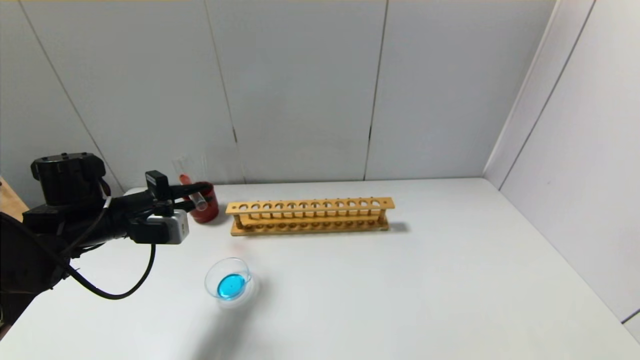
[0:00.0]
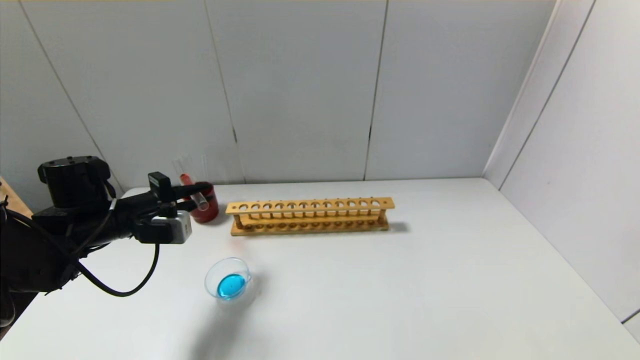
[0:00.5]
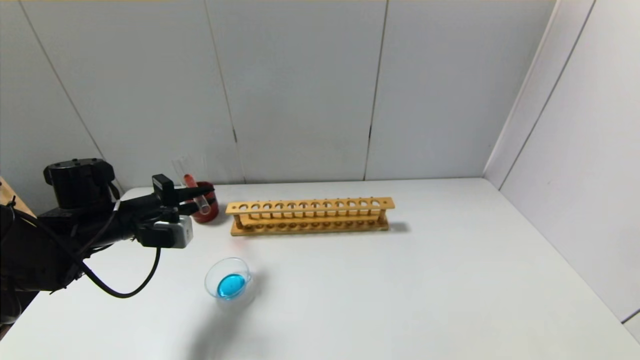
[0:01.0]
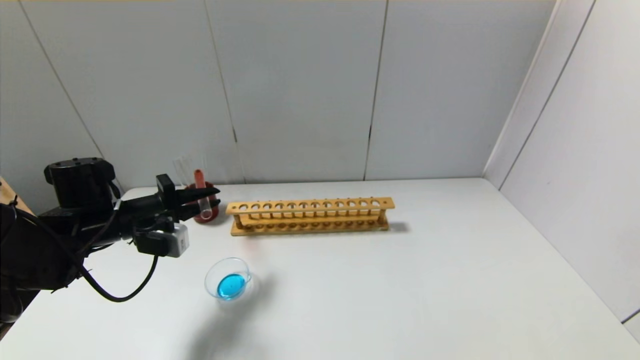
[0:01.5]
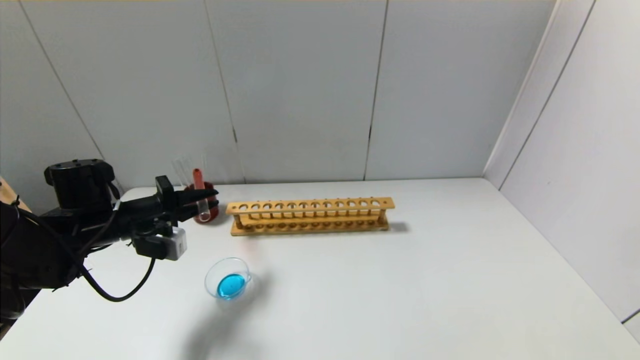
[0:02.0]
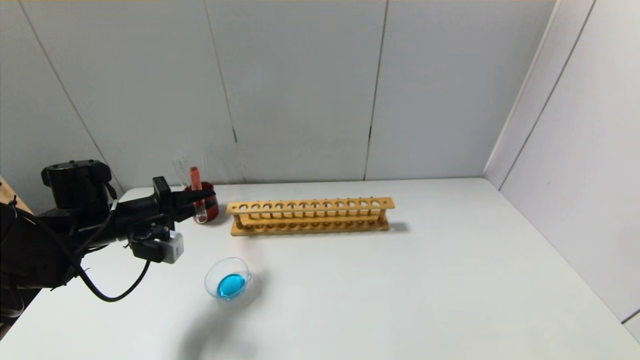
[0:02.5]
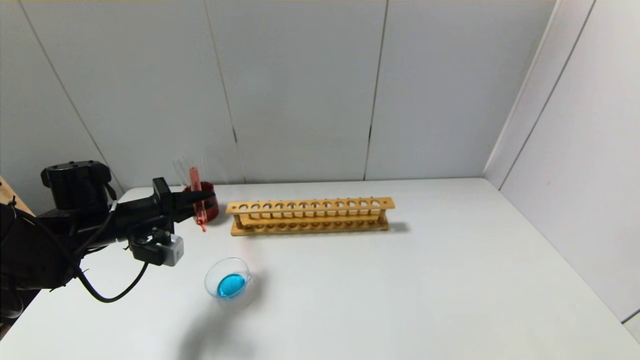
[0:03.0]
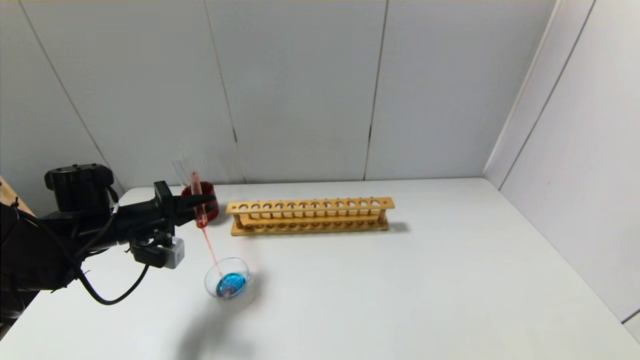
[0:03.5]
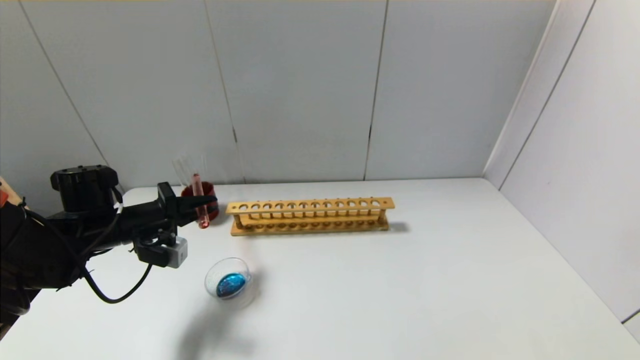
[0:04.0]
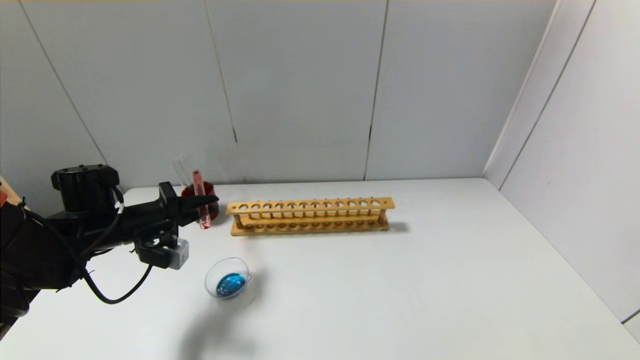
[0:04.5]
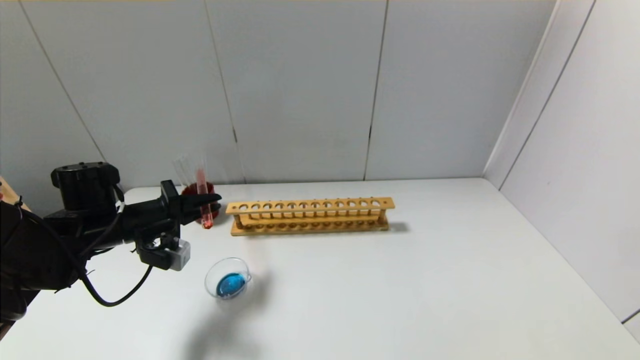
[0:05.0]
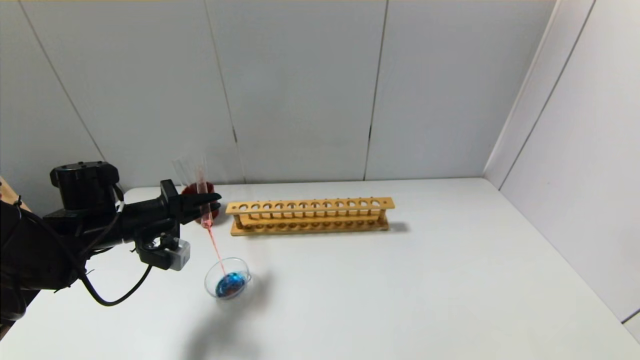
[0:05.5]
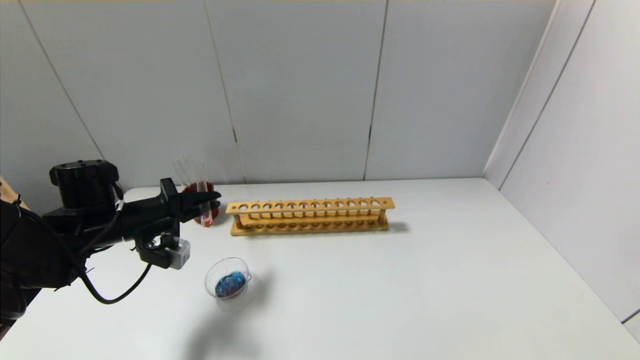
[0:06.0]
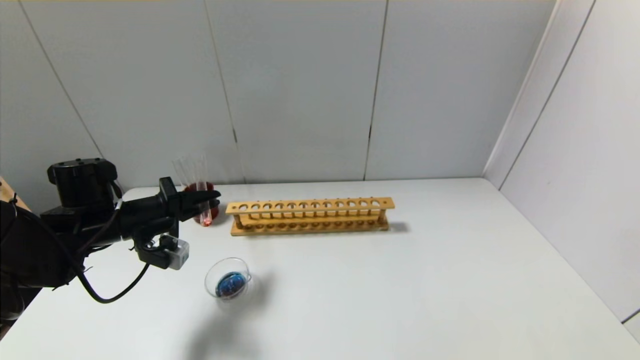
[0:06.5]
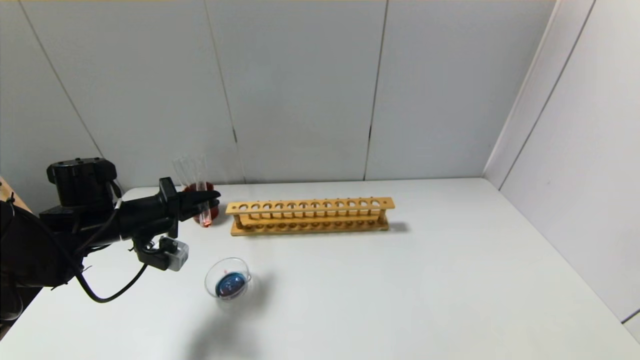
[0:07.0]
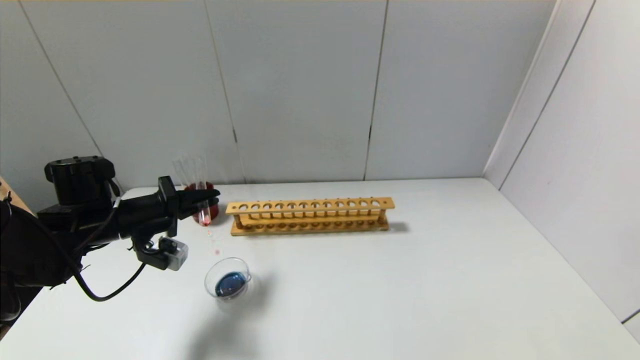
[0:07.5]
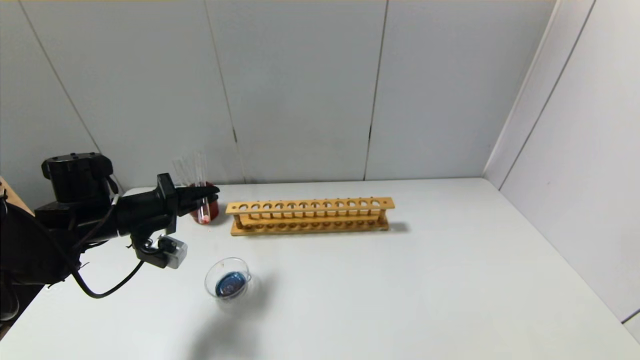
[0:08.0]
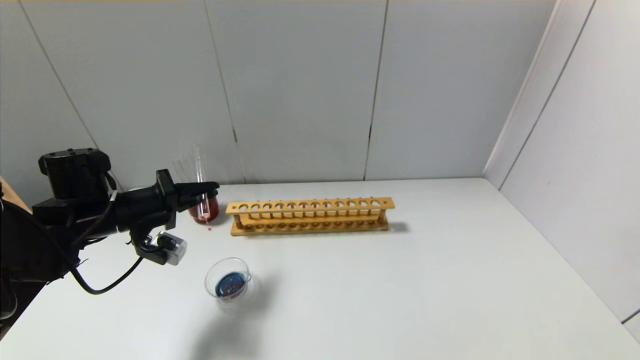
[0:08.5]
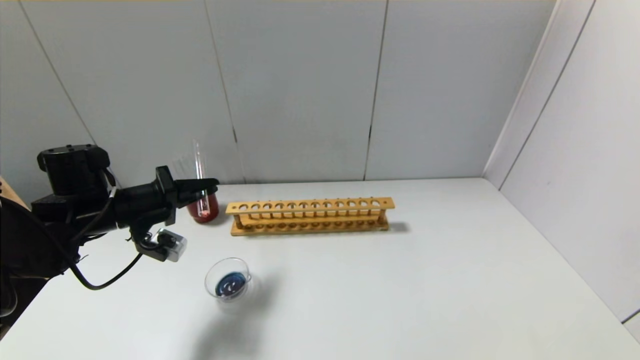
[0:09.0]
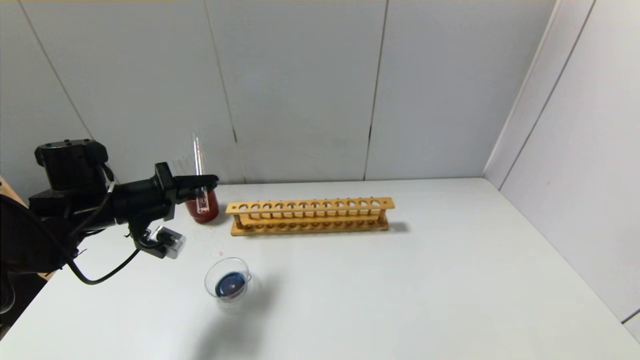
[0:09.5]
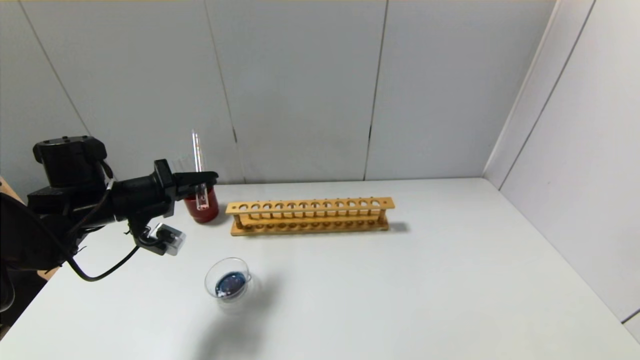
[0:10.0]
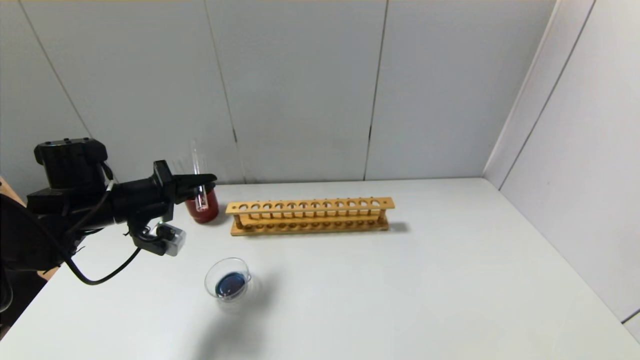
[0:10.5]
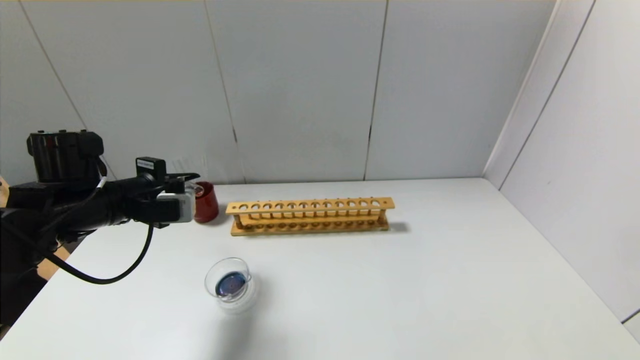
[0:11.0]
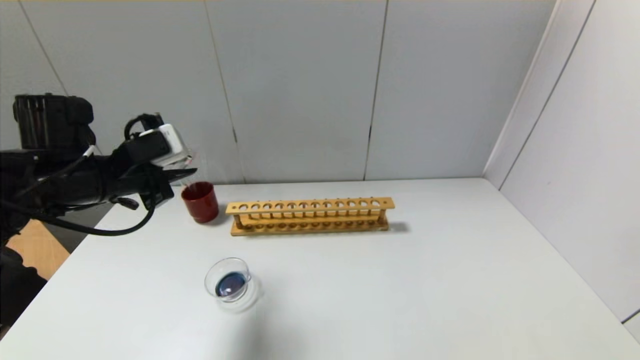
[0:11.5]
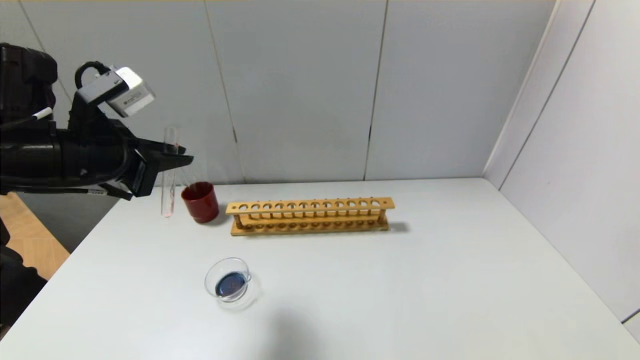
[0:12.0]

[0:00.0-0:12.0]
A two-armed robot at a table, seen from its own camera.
Step, 0:00.0 to 0:10.0: Pour the red reagent into the graduated cylinder with the left gripper.
0:00.0 to 0:04.0: The grippers make only small movements.
0:04.0 to 0:08.0: The grippers make only small movements.
0:08.0 to 0:10.0: The grippers move only a little.
0:10.0 to 0:12.0: The left gripper is displaced upward and backward by approximately 15 cm.

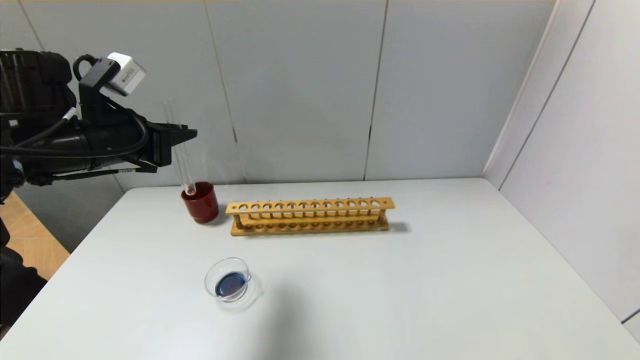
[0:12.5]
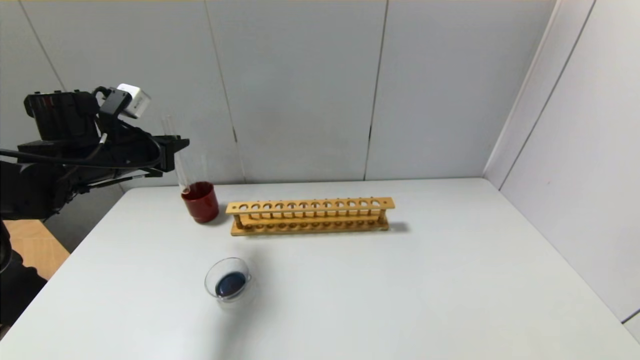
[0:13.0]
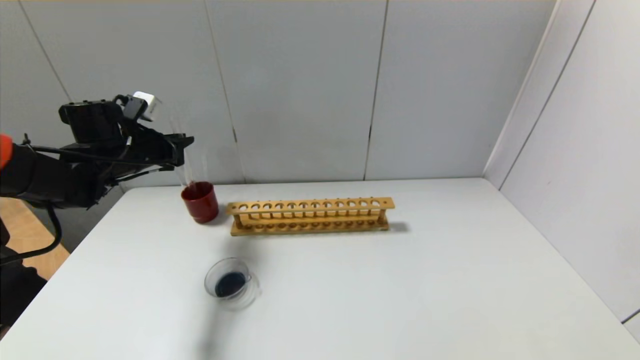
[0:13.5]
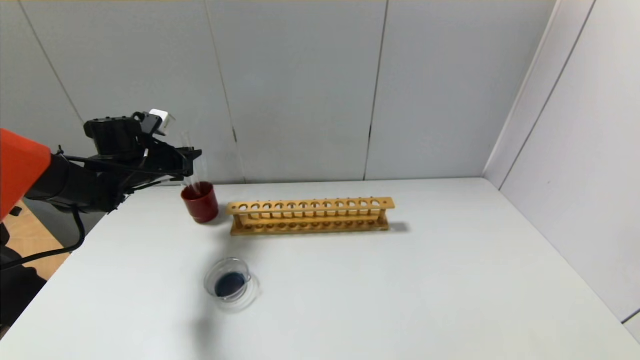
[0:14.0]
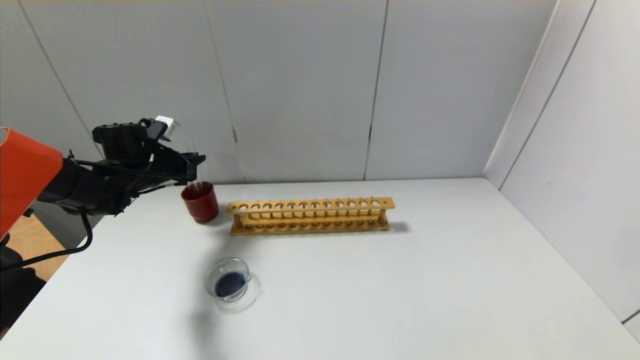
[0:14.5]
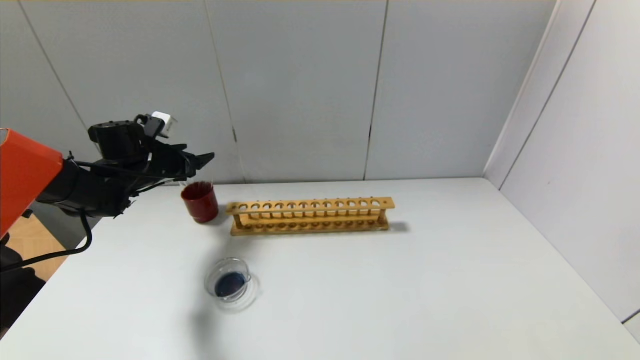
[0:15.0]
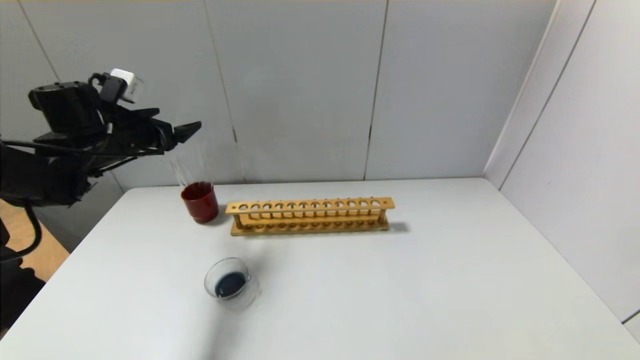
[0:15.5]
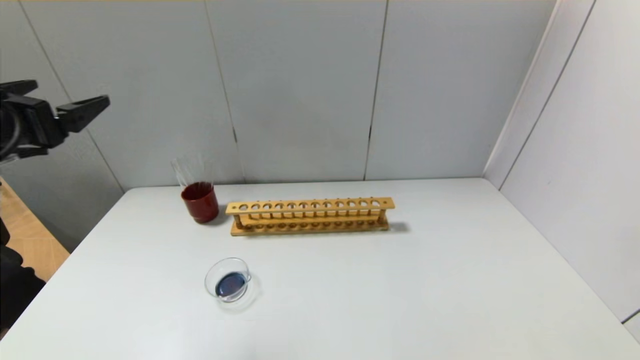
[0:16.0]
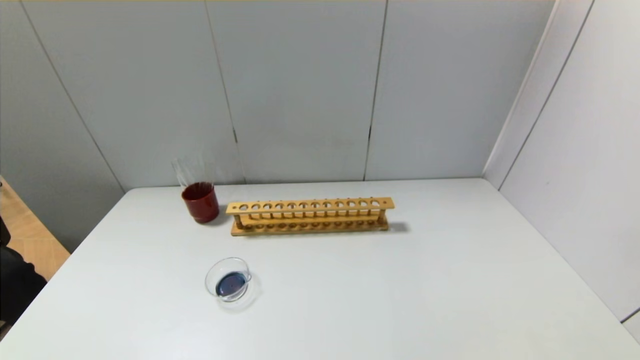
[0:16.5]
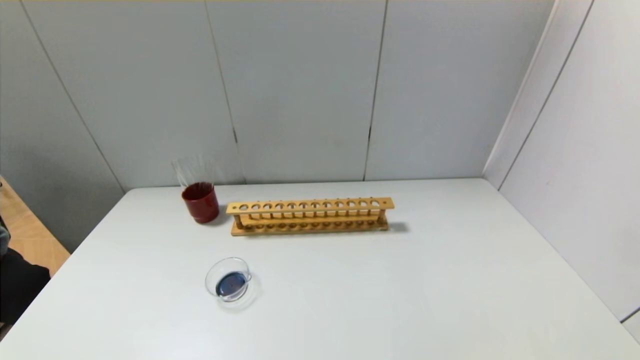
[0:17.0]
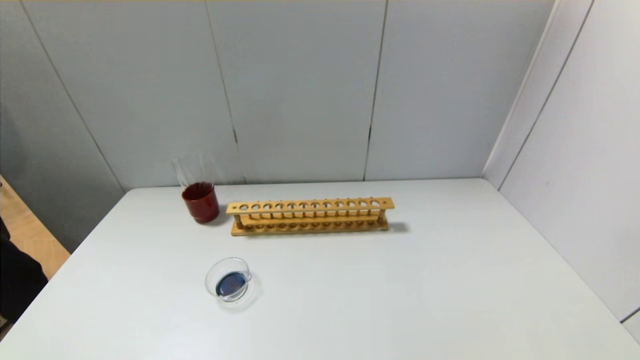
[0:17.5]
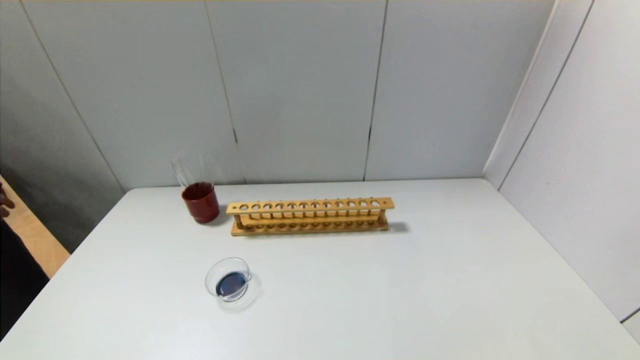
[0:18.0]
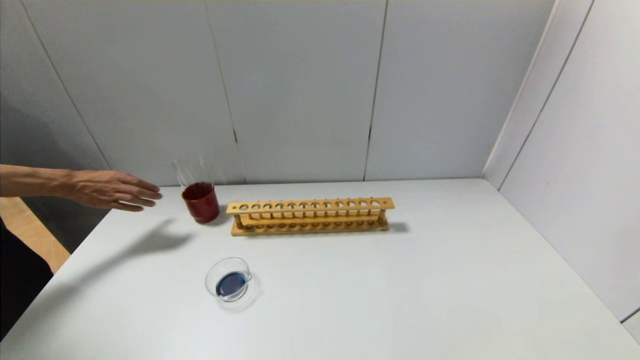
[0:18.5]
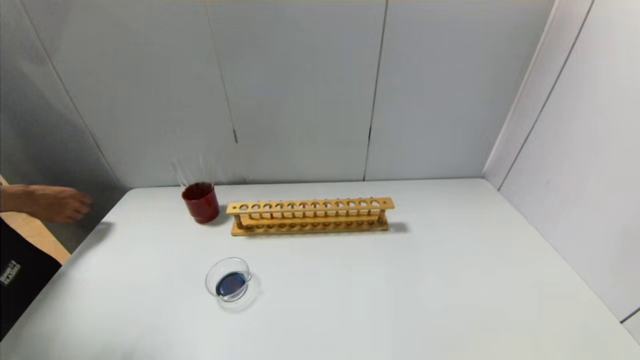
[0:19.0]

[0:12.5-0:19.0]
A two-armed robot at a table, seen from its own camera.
Step, 0:12.5 to 0:14.5: Place the test tube into the brown cup with the left gripper.
0:12.5 to 0:14.5: The left gripper shifts approximately 20 cm forward and downward.
0:14.5 to 0:17.0: The left gripper shifts approximately 50 cm backward, and opens its fingers.
0:17.0 to 0:19.0: The left gripper goes approximately 15 cm downward.

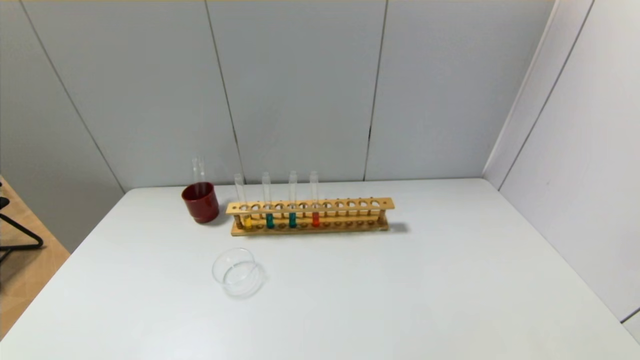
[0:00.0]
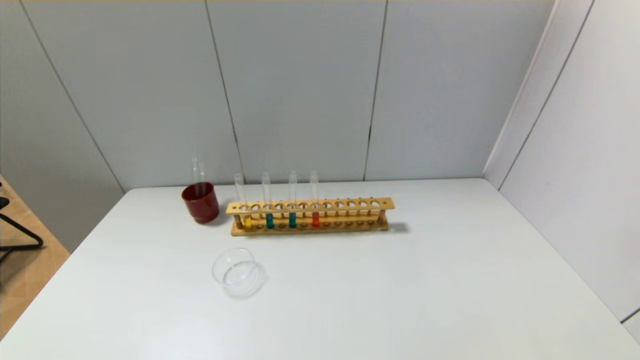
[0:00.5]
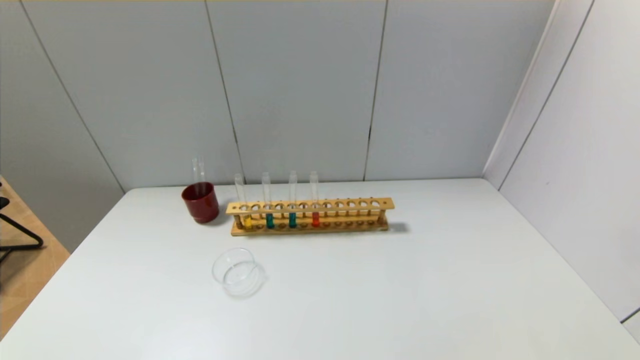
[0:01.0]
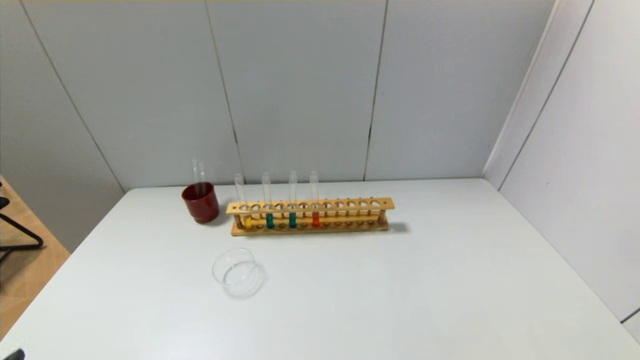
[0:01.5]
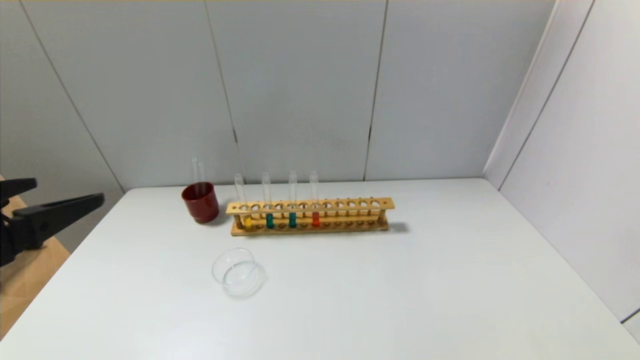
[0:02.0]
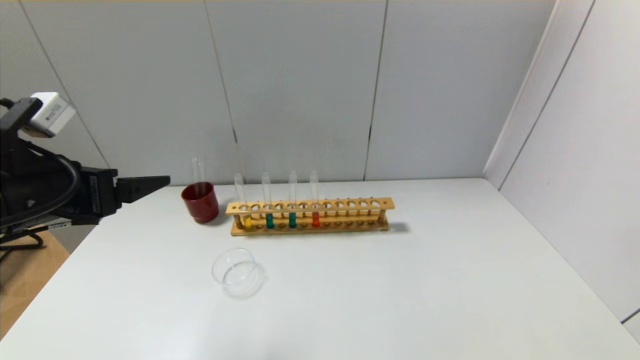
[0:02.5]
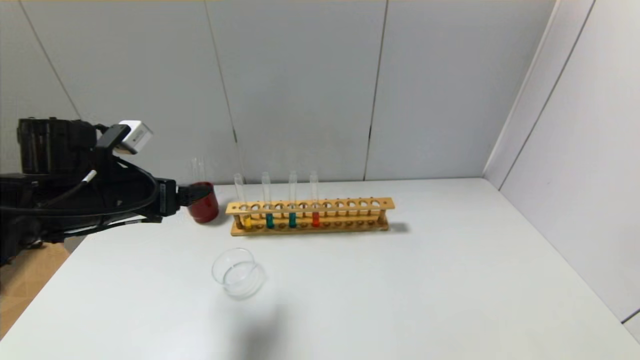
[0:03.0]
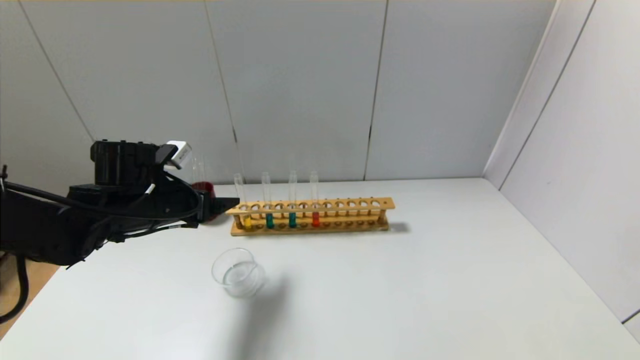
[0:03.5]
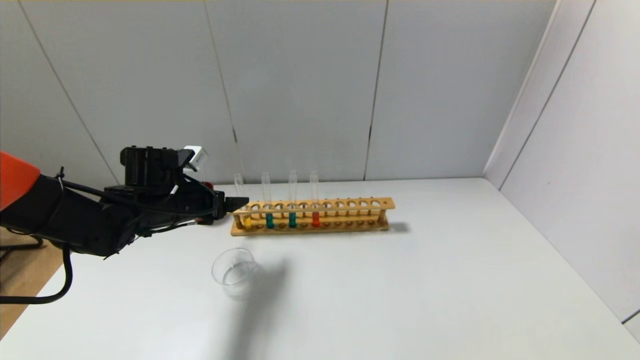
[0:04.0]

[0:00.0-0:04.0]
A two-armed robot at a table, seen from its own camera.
0:00.0 to 0:02.0: The left gripper shifts roughly 25 cm upward and forward.
0:02.0 to 0:04.0: The left gripper goes some 25 cm forward and downward.